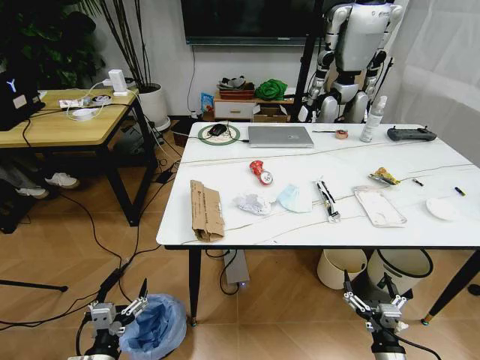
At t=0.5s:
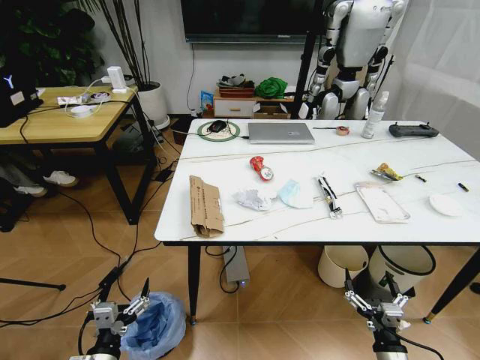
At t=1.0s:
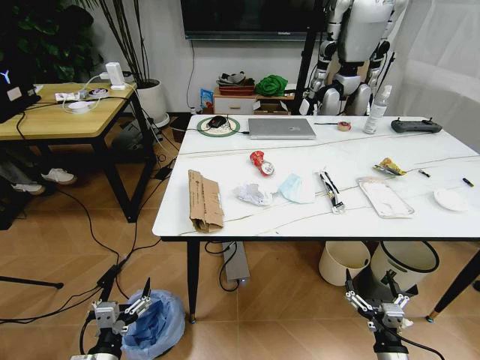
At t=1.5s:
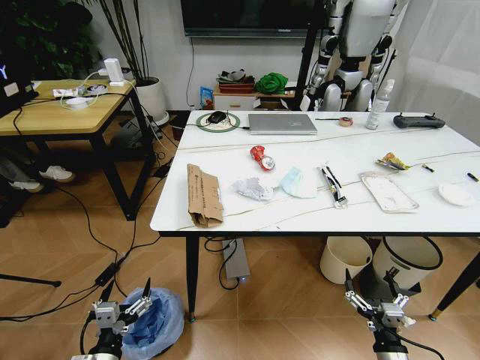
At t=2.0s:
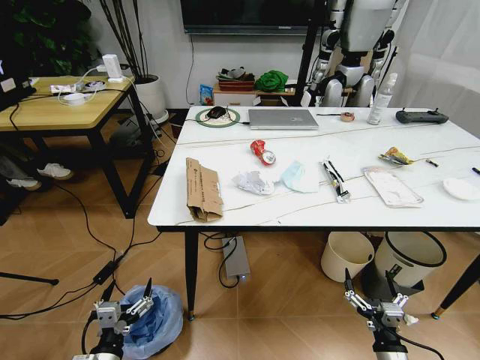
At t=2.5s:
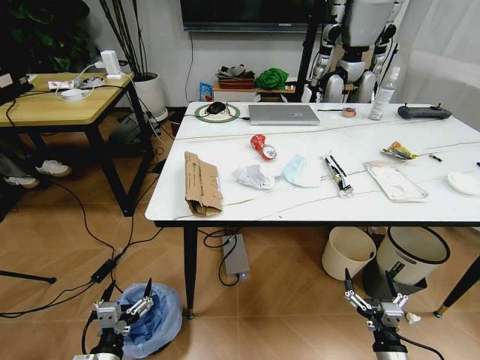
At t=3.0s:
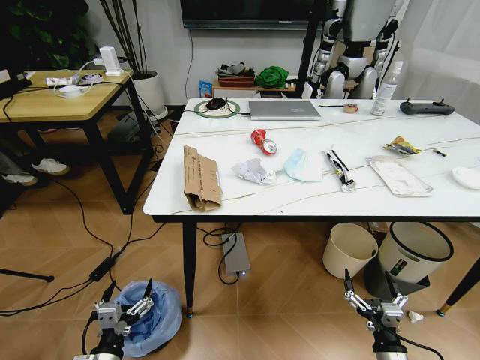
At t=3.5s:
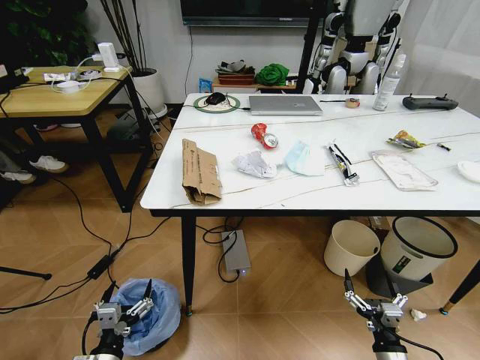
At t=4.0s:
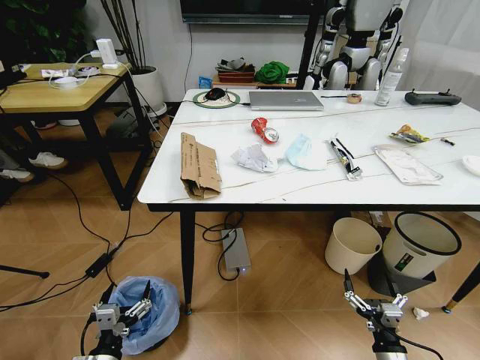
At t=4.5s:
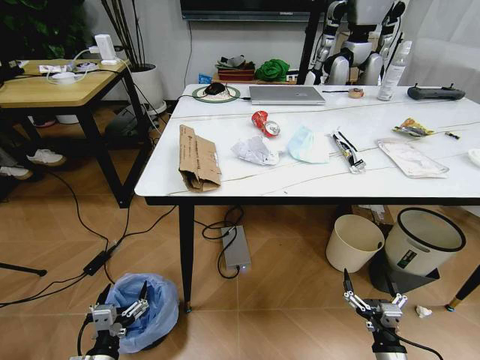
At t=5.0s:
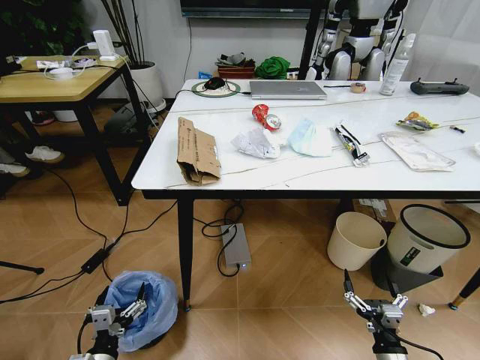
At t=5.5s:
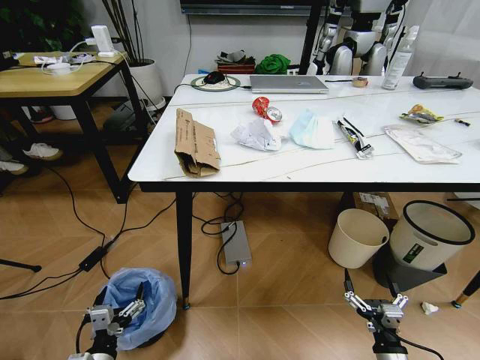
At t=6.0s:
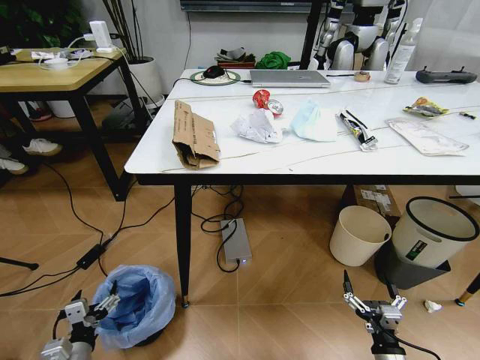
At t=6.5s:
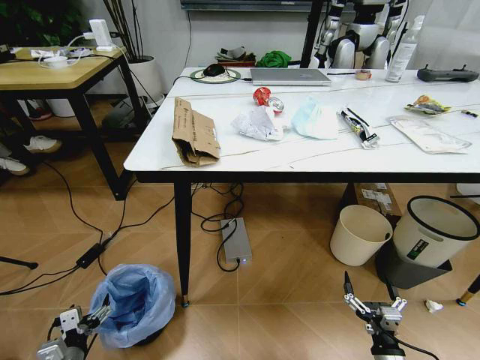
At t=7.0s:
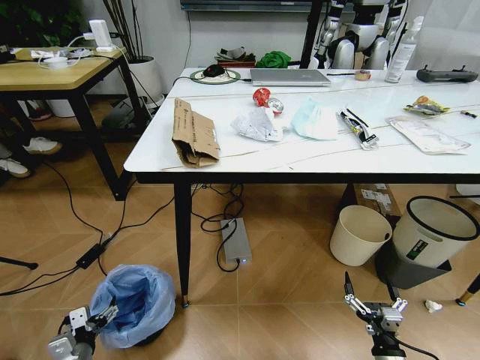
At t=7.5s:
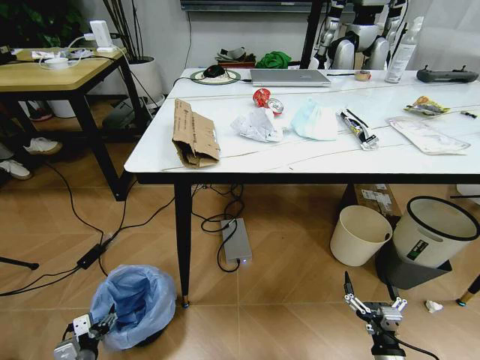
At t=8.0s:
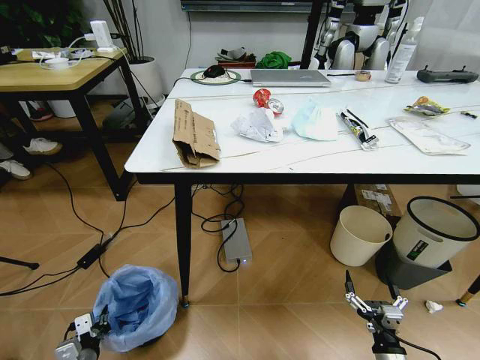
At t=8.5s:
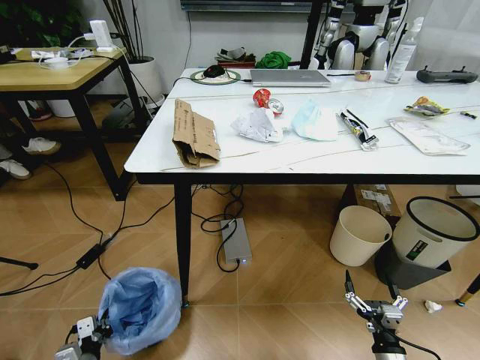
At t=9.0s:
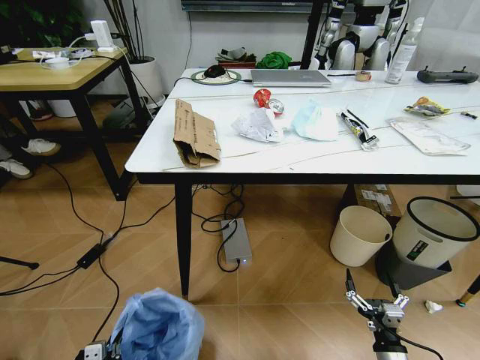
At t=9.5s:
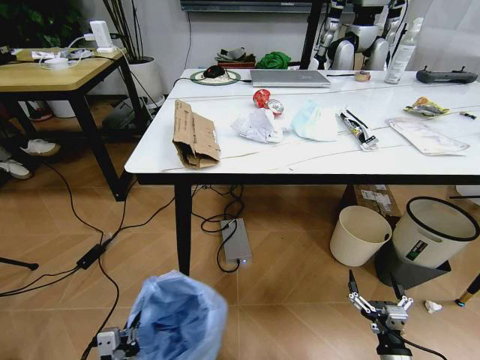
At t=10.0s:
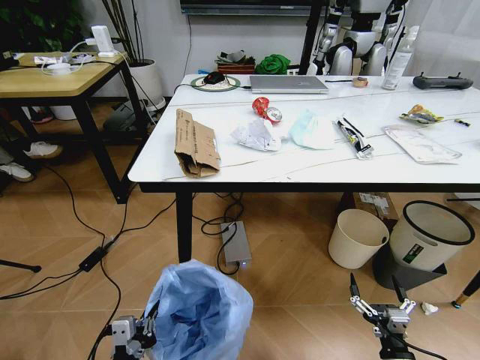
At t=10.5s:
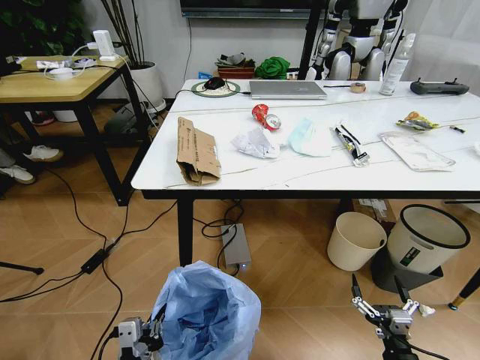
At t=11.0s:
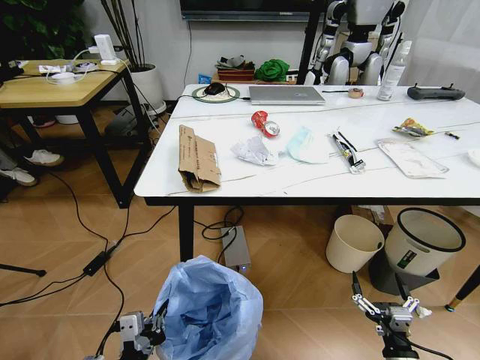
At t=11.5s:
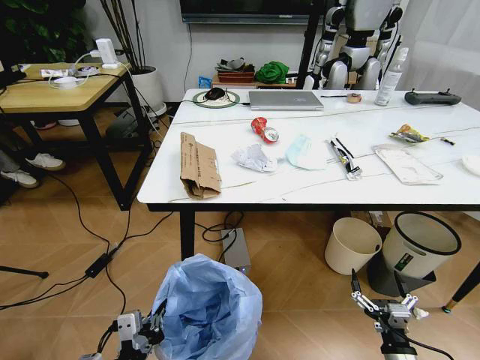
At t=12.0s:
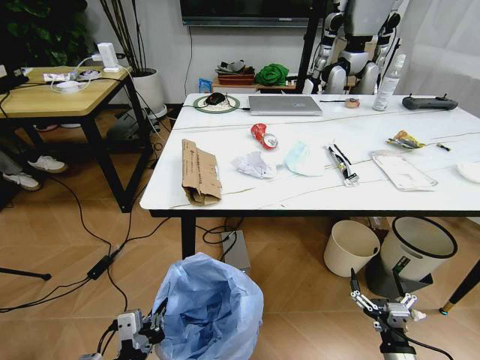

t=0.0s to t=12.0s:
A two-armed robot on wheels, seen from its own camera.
Task of the whole recording: Pick up the trash bin and place the trash from the table into it.
t=4.0s to t=6.0s: The left gripper shifts approximately 5 cm to the left.
t=6.0s to t=8.0s: The left gripper travels downward by about 5 cm, and closes.
t=8.0s to t=10.0s: The left gripper heads upward, to the right and backward, covering roughly 20 cm.
t=10.0s to t=12.0s: The left gripper ends up some 5 cm from where it was.

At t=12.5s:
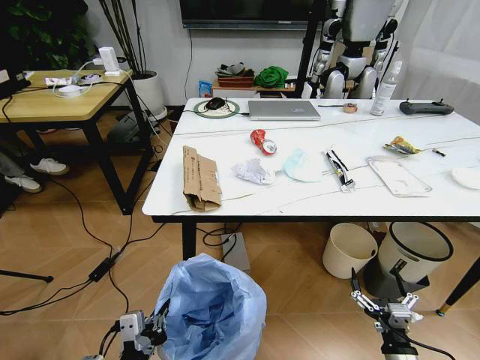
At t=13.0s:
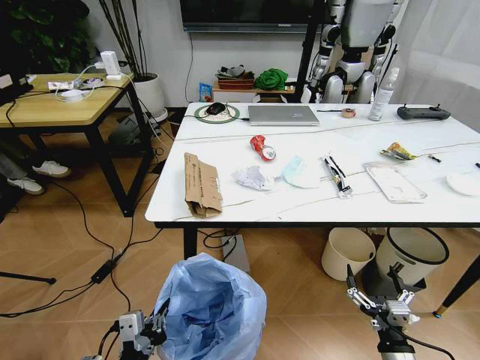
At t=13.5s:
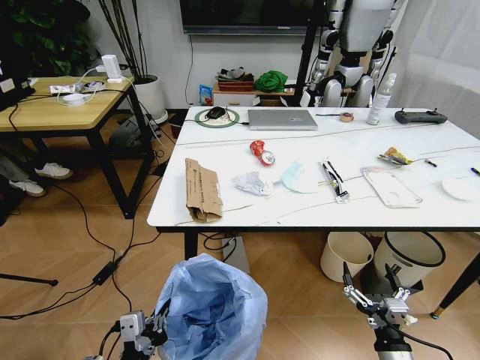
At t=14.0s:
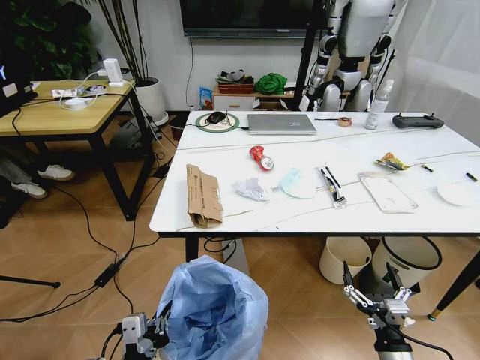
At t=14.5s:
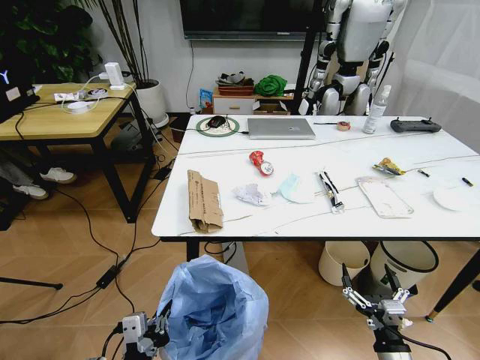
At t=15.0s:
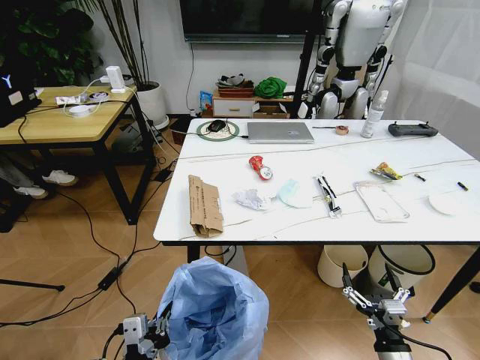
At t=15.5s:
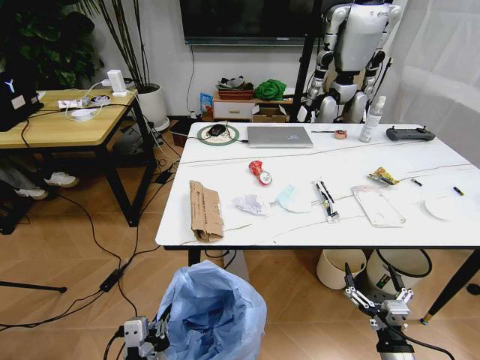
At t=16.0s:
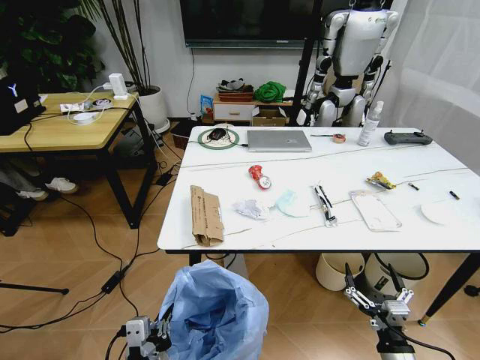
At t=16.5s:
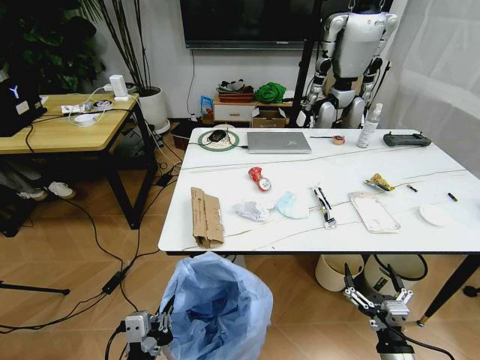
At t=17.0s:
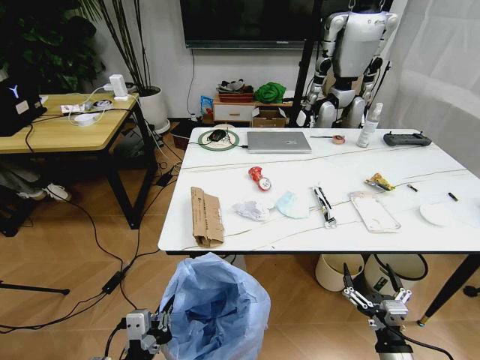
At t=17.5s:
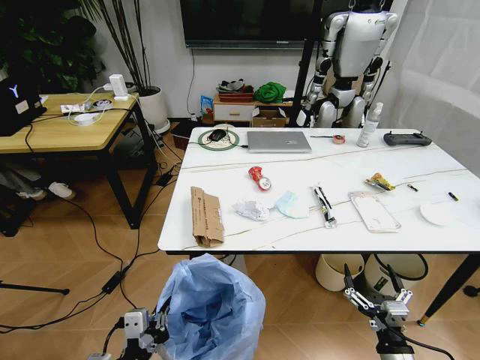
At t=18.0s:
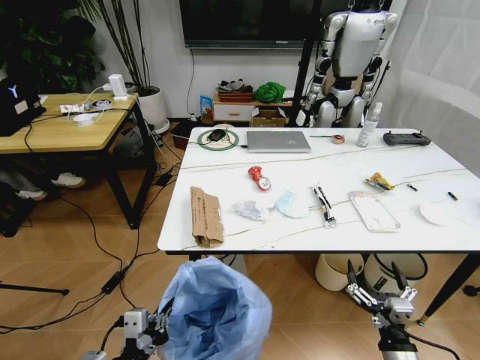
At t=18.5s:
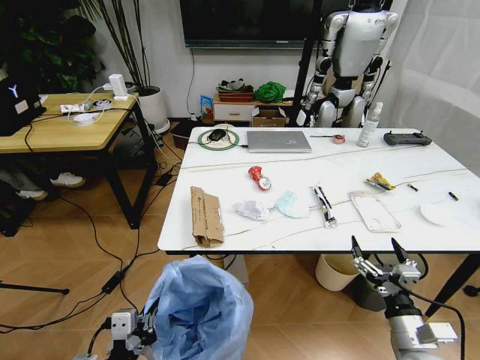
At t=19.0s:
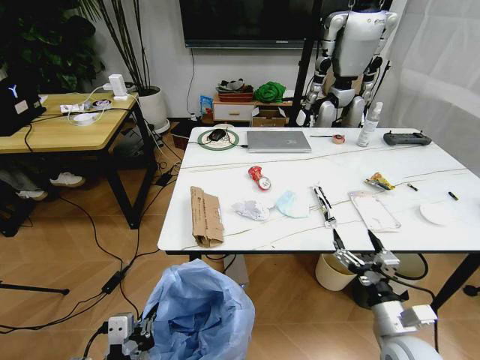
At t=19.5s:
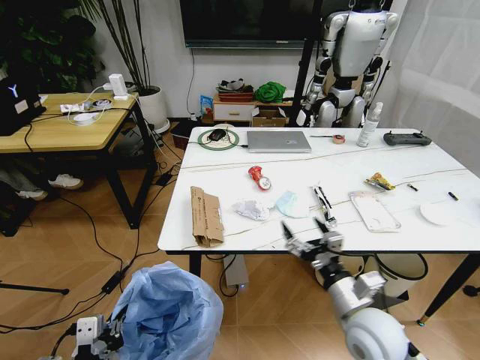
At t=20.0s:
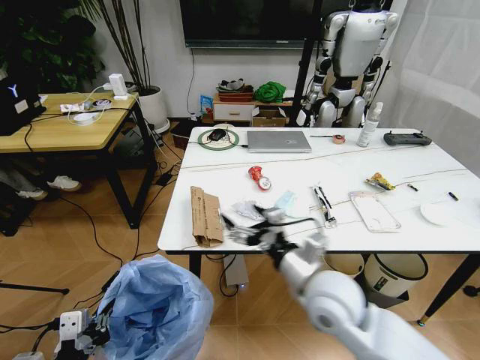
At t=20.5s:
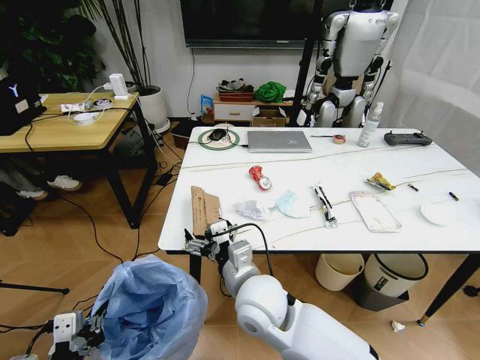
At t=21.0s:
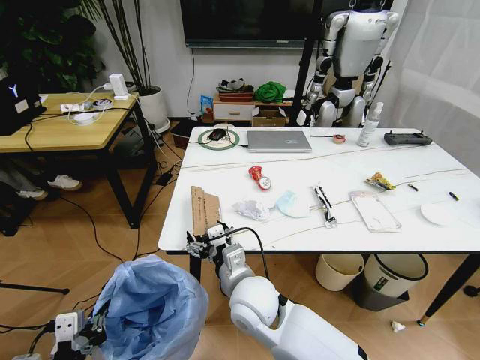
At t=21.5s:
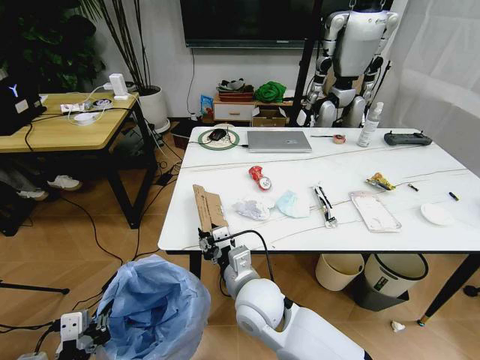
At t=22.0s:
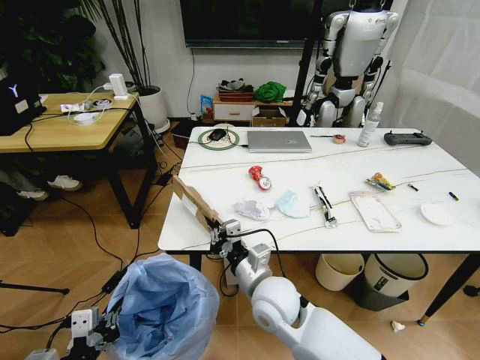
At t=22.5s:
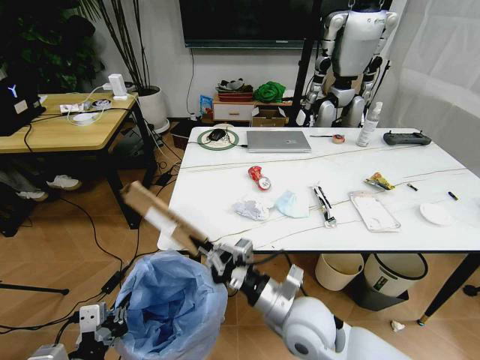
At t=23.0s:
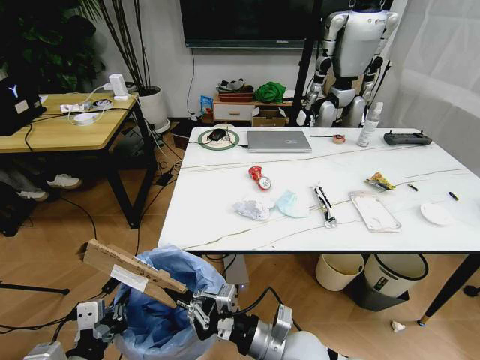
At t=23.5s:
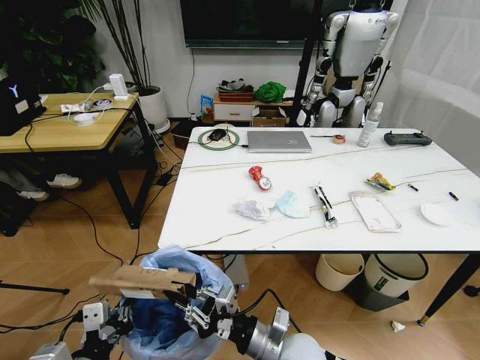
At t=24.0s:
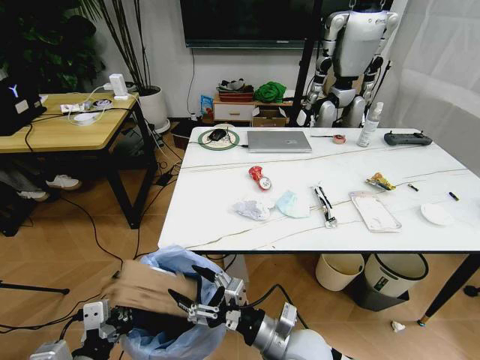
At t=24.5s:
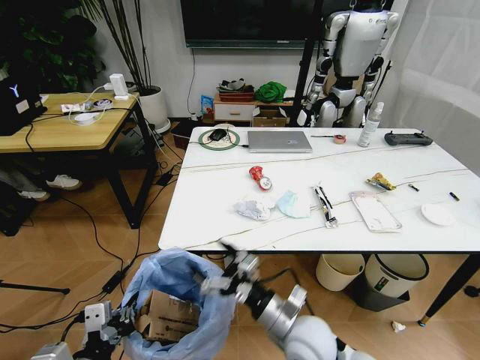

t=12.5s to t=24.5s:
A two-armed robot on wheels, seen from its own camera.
Task of the whole recording: Pick up the trash bin and place the trash from the table into it.
t=16.5s to t=18.5s: The right gripper shifts some 5 cm forward.
t=18.5s to t=20.5s: The right gripper heads to the left, covering some 30 cm. Meanwhile the left gripper moves to the left, roughly 10 cm.
t=20.5s to t=22.5s: The right gripper goes about 10 cm to the right, and closes its fingers.
t=22.5s to t=24.5s: The right gripper opens up.

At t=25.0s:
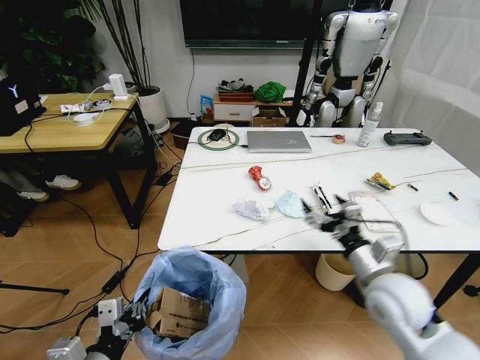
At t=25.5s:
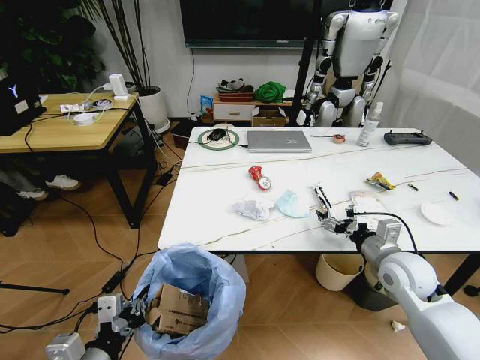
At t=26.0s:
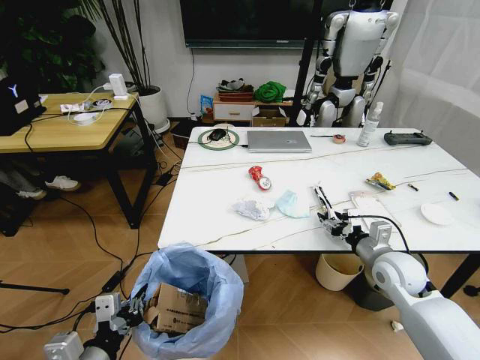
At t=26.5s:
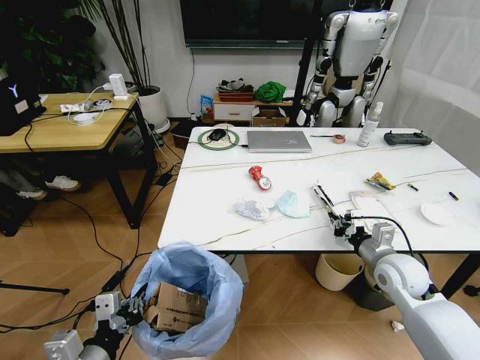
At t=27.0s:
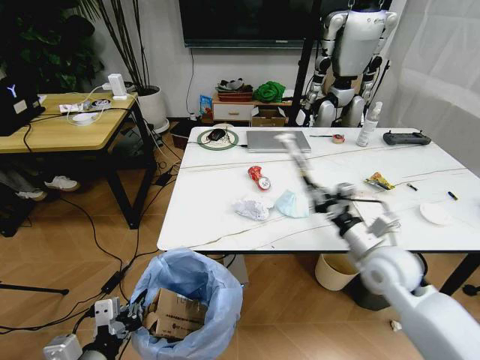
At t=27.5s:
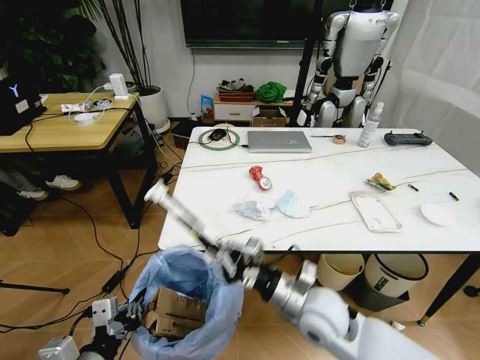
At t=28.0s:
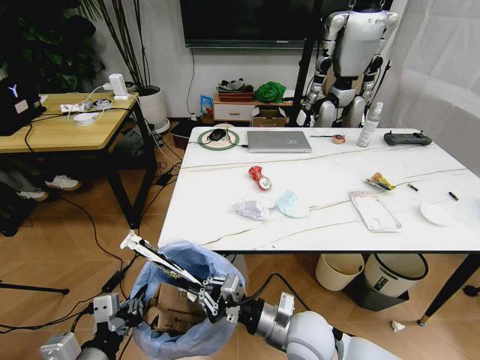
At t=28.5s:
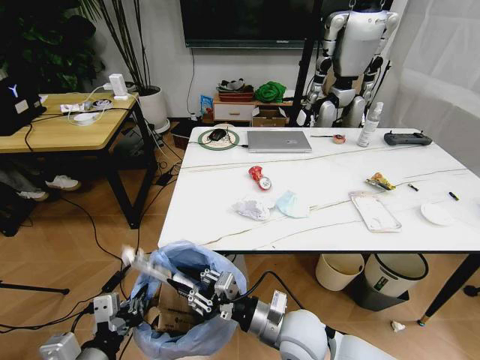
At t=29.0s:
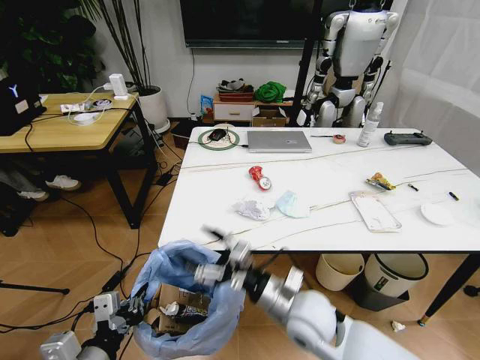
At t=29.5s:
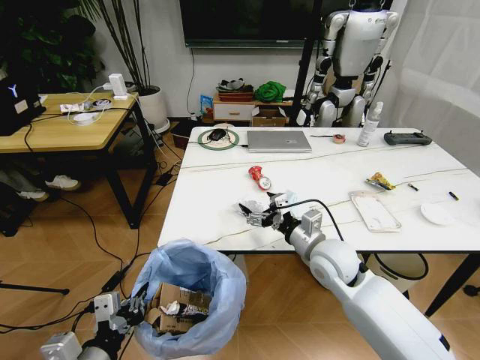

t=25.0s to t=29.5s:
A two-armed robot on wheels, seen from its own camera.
Task of the whole recording: Pick up the trash bin and place the trash from the table into it.
t=25.0s to t=27.0s: The right gripper shifts about 5 cm forward, and closes up.
t=27.0s to t=29.5s: The right gripper heads to the left, covering approximately 10 cm, and opens its fingers.
